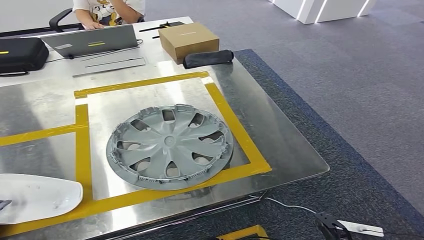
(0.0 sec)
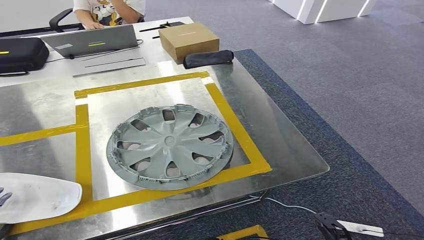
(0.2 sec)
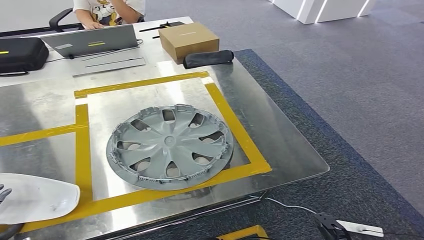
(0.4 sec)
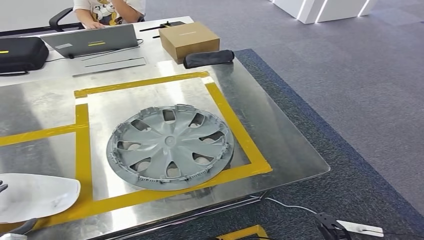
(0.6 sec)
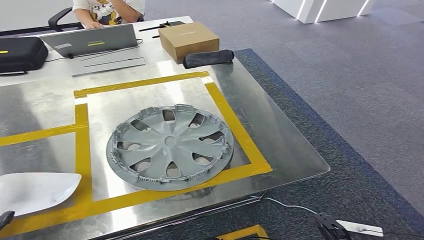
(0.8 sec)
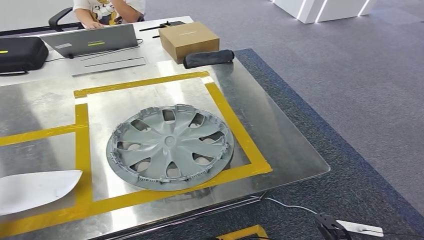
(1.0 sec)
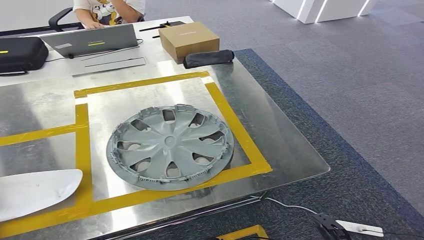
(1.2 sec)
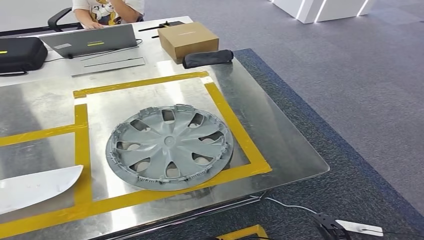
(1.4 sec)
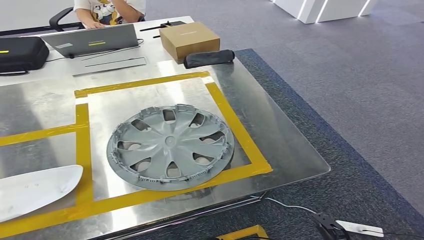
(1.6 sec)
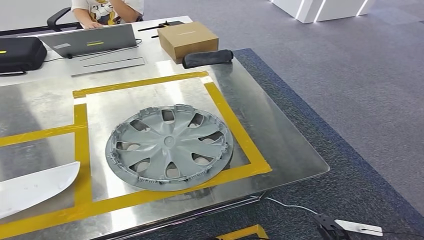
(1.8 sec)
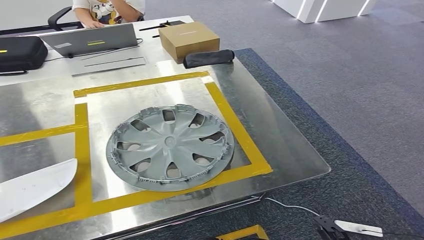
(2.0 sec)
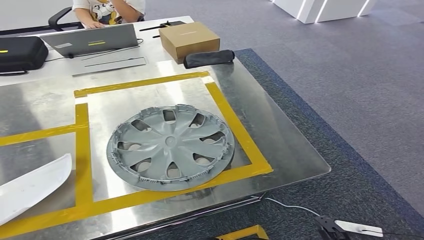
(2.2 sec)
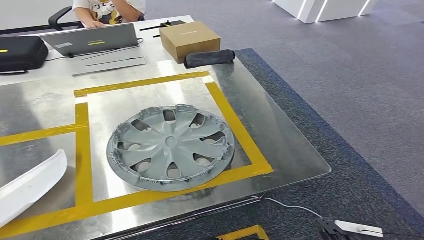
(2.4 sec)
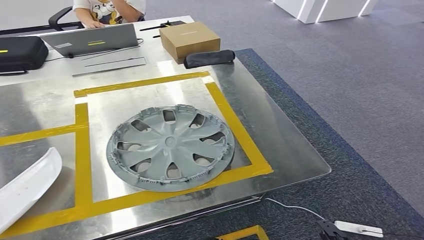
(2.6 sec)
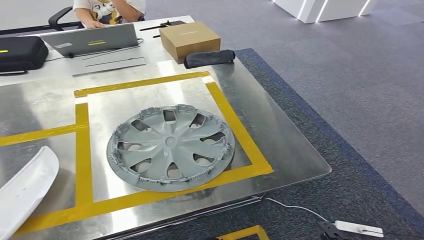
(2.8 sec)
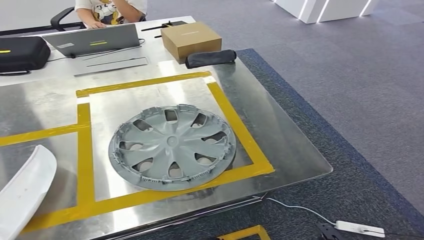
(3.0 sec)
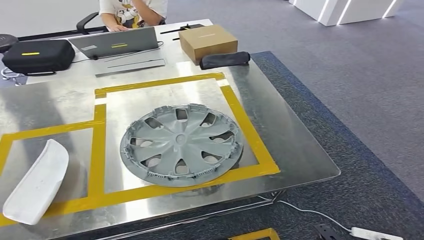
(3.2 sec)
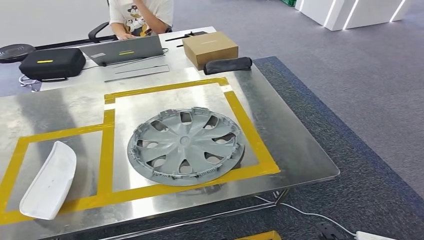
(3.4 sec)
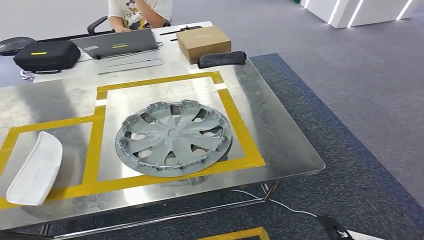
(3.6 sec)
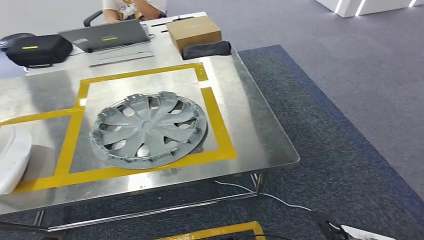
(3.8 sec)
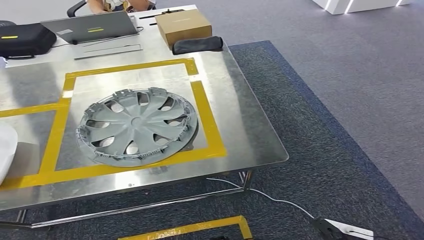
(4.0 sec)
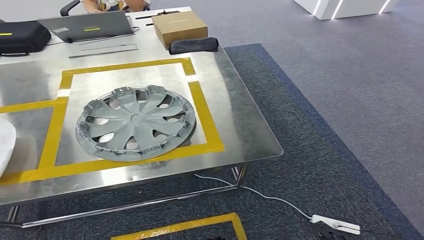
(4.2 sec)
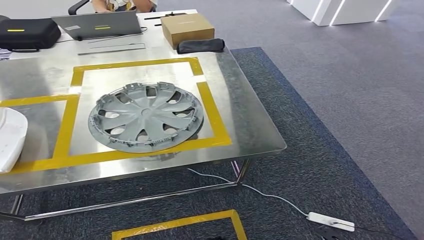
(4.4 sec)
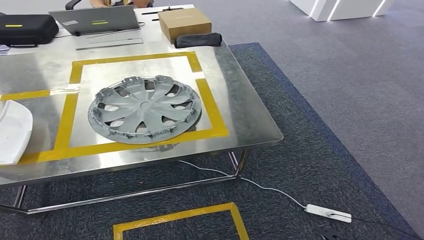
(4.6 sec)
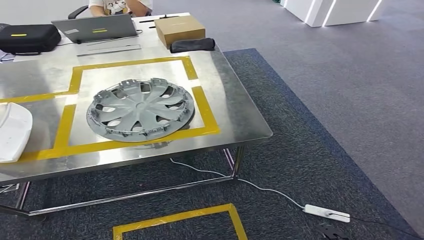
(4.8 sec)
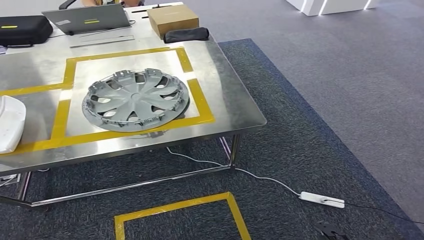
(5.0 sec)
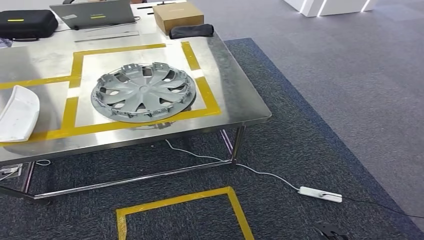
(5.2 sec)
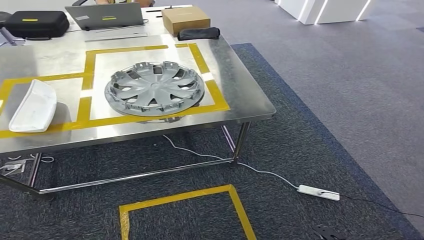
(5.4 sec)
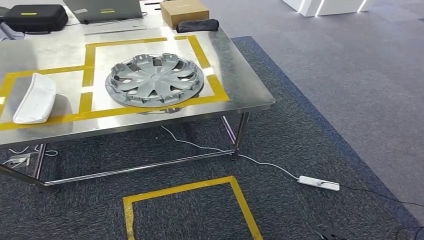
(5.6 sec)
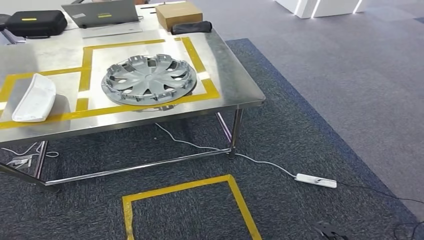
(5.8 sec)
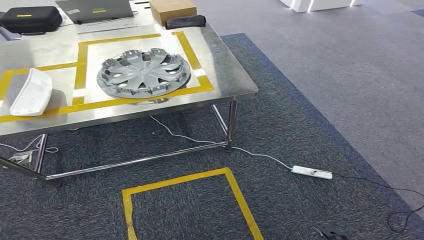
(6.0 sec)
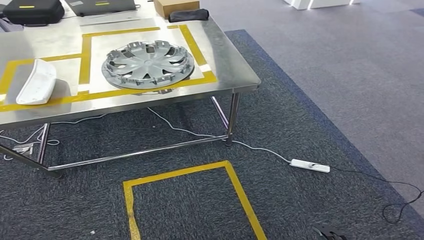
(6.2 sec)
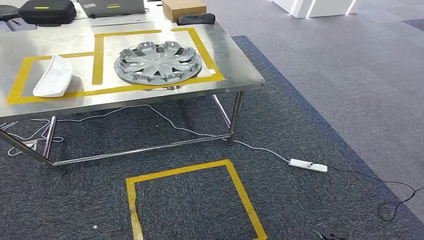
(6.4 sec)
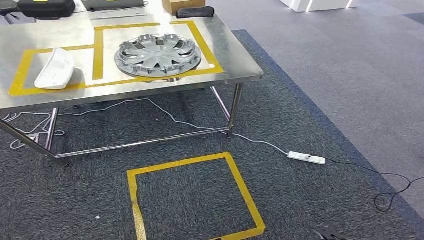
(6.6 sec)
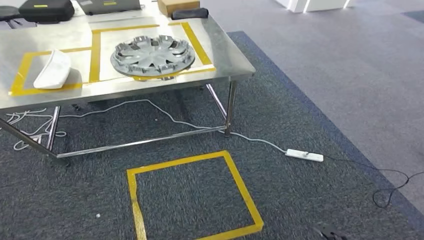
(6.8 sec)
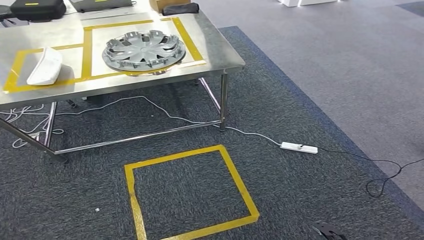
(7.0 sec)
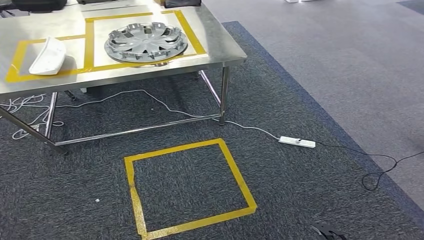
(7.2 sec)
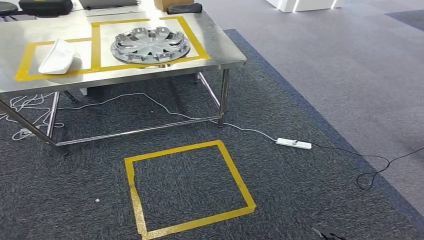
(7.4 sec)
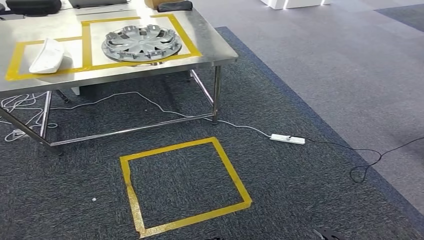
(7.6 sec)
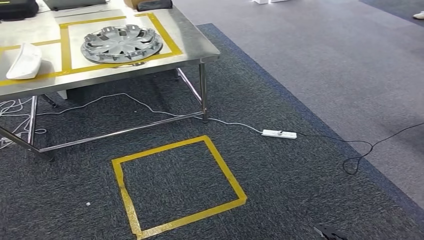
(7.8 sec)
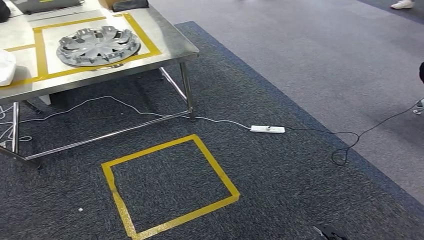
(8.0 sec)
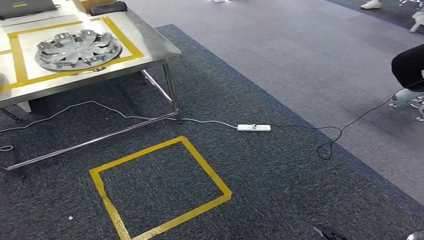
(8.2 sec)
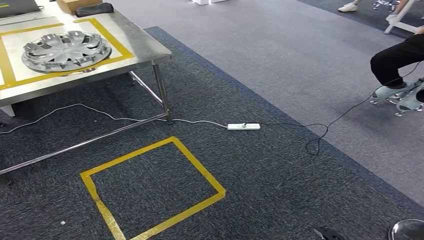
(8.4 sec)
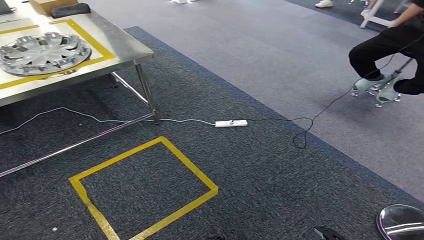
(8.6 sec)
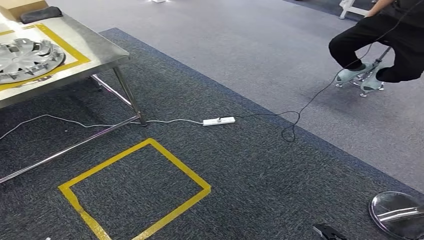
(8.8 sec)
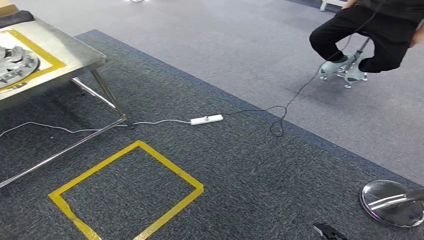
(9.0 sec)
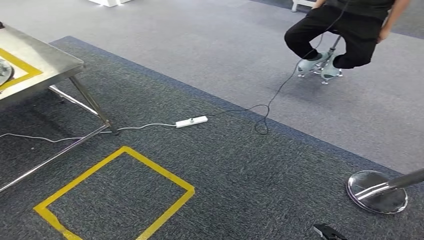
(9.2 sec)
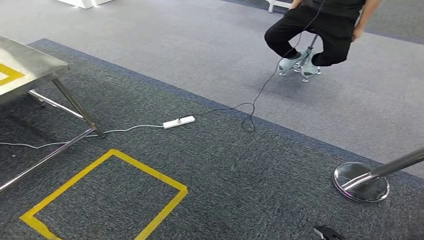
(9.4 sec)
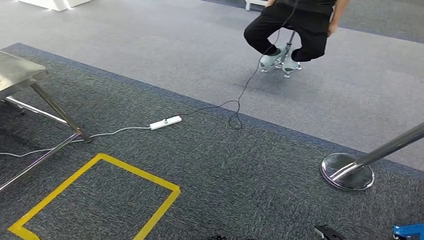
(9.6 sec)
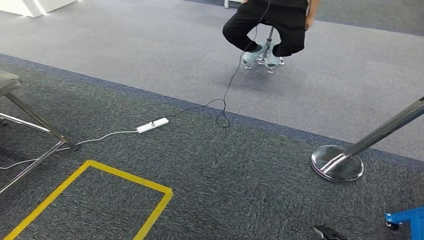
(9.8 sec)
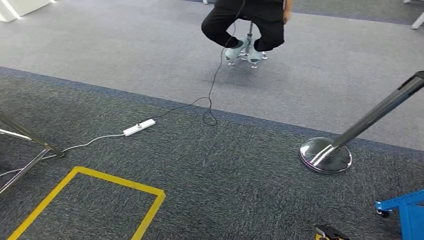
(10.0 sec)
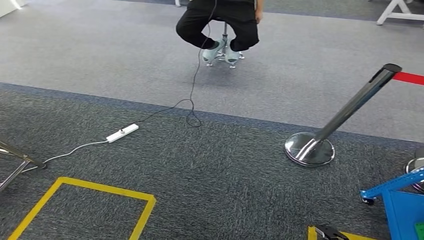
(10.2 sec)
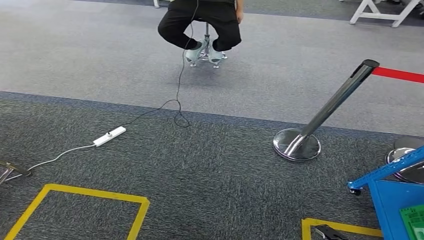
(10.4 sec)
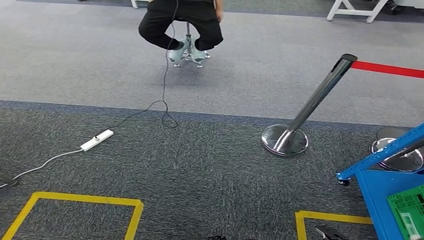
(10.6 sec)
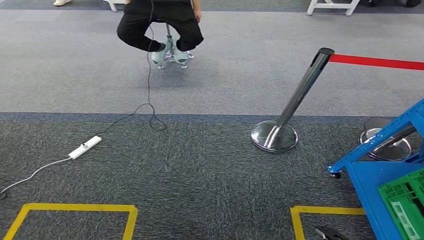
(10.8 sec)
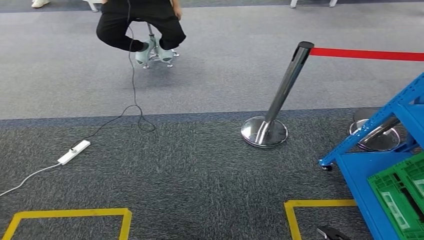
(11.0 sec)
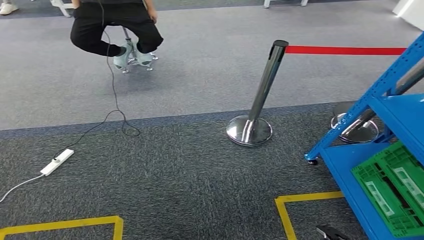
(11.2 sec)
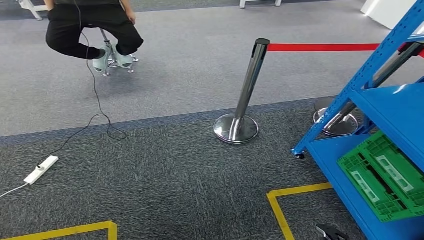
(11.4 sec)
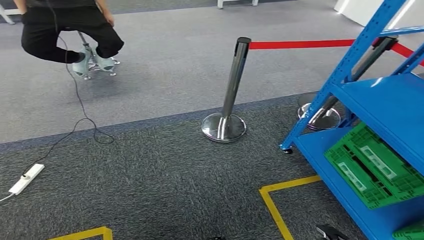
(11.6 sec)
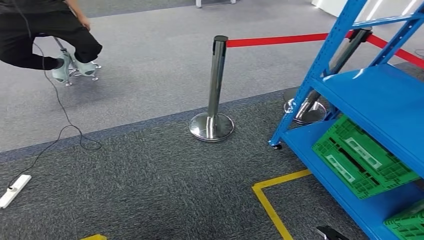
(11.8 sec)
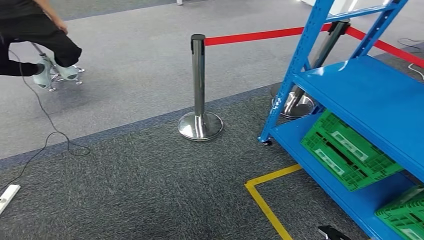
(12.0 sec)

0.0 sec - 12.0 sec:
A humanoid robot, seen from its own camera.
0.0 sec - 1.6 sec: The left hand is displaced upward by some 10 cm.
1.6 sec - 3.0 sec: The left hand shifts some 20 cm backward and downward.

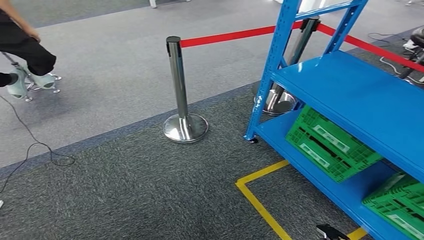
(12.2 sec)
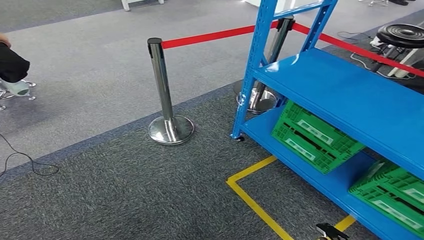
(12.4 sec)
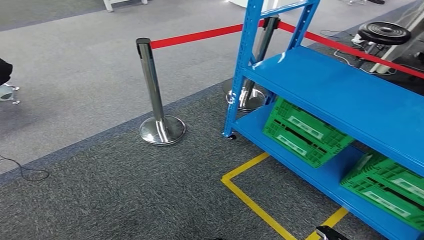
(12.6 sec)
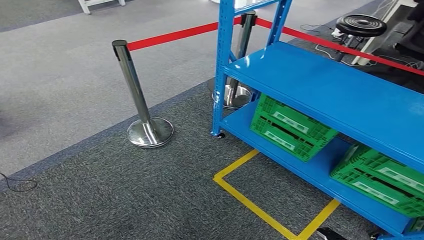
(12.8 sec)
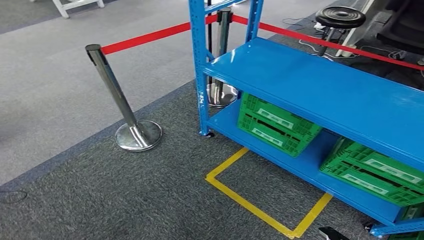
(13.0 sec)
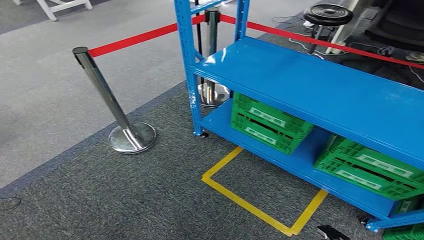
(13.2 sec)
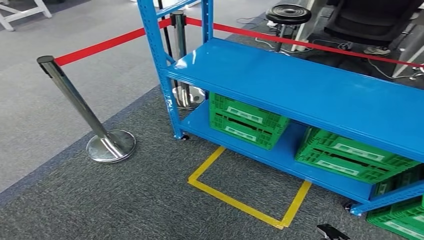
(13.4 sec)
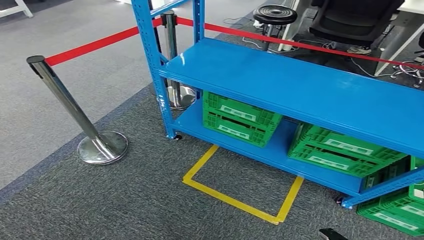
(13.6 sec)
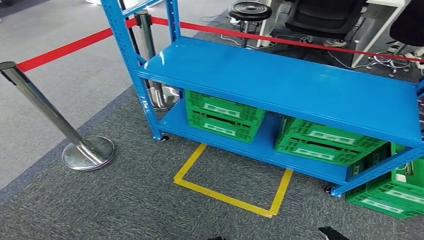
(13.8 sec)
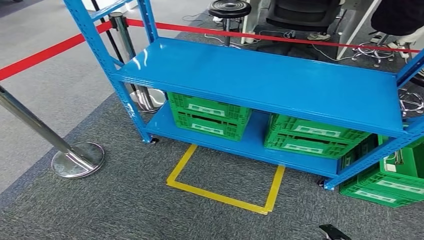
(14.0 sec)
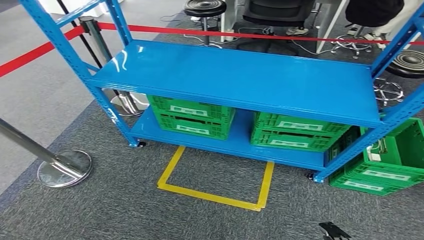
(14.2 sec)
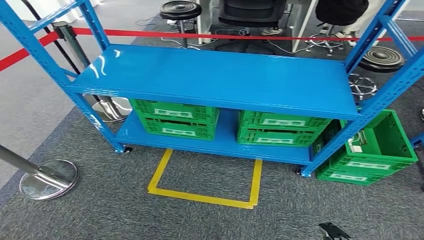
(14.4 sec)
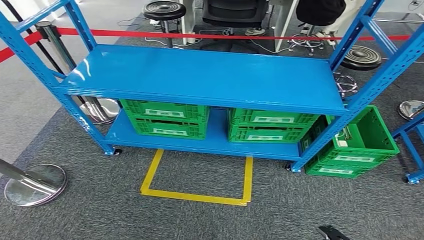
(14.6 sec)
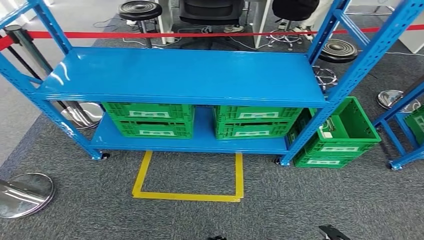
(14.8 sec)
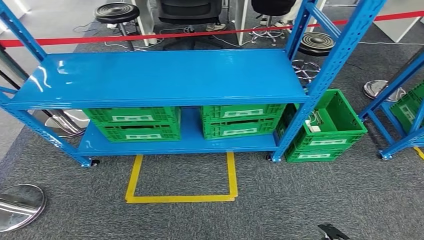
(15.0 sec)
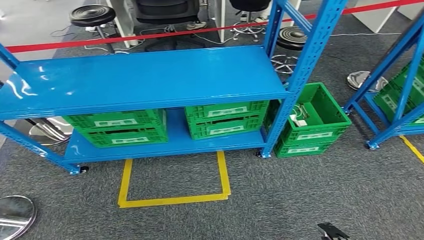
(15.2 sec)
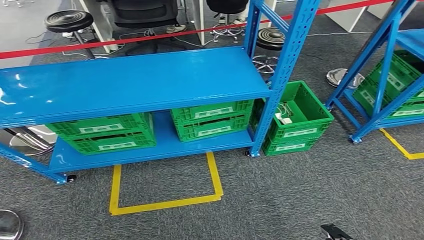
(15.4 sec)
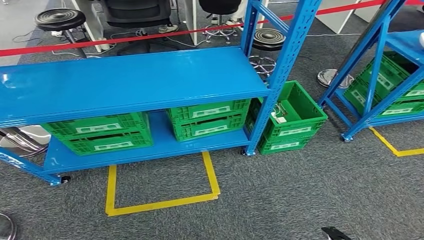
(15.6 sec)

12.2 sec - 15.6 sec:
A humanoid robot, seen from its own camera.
Step, 12.2 sec - 15.6 sec: Return to the initial position at the workbench.
